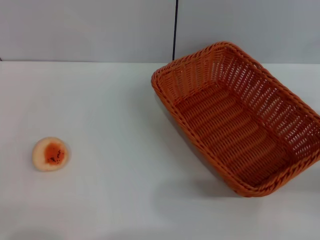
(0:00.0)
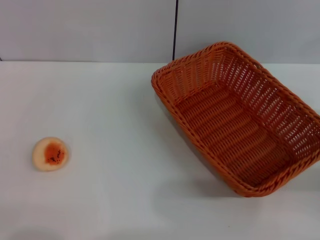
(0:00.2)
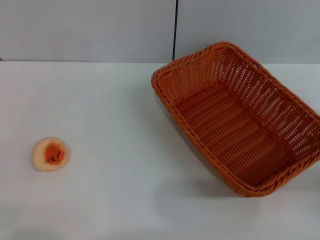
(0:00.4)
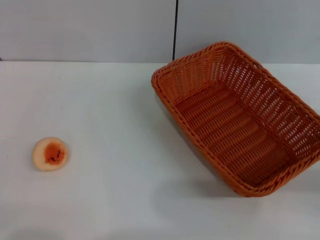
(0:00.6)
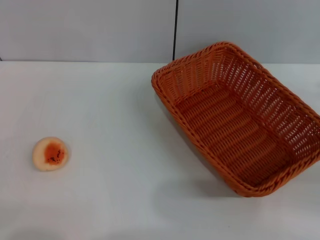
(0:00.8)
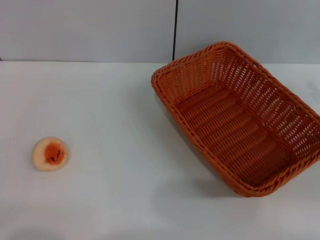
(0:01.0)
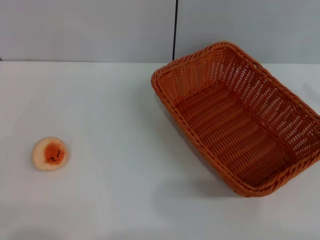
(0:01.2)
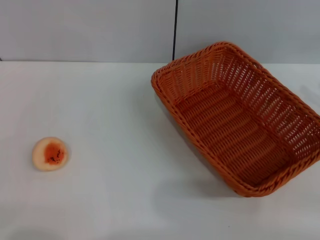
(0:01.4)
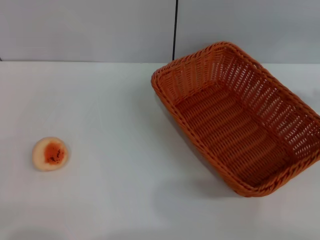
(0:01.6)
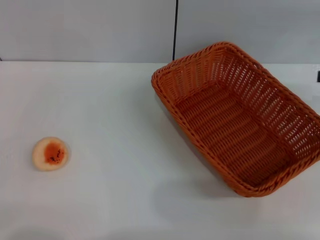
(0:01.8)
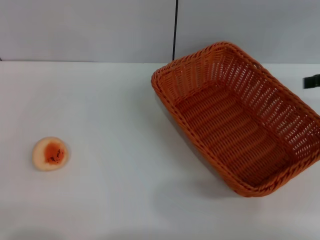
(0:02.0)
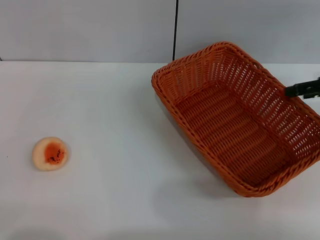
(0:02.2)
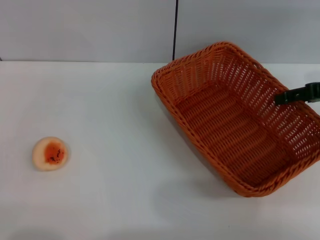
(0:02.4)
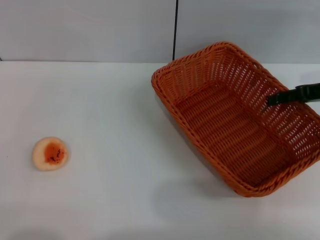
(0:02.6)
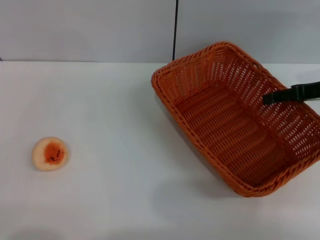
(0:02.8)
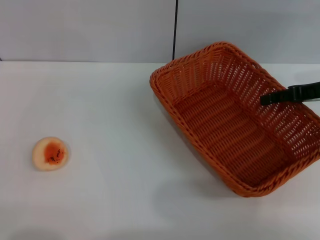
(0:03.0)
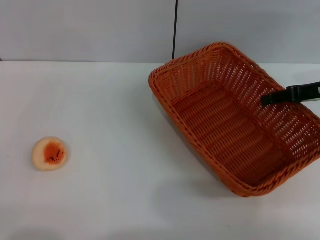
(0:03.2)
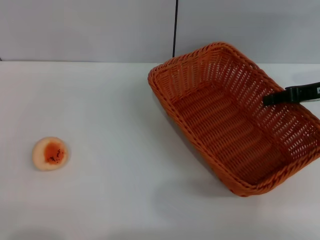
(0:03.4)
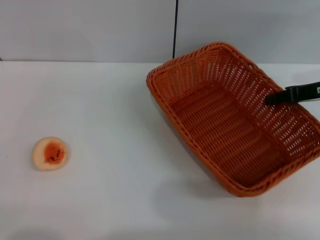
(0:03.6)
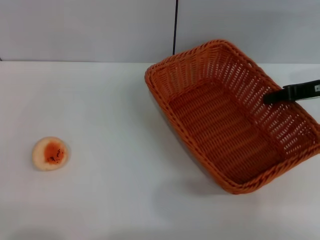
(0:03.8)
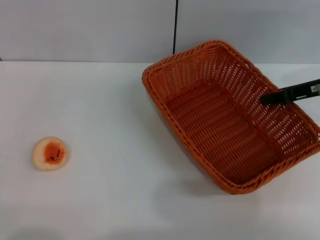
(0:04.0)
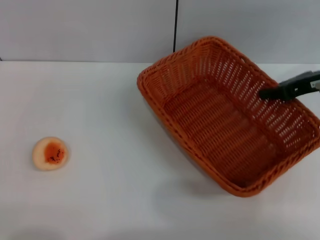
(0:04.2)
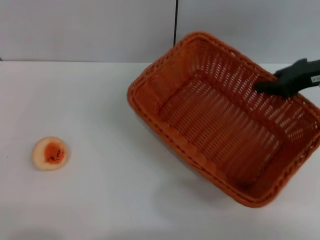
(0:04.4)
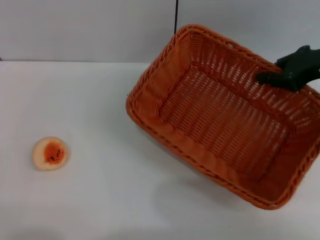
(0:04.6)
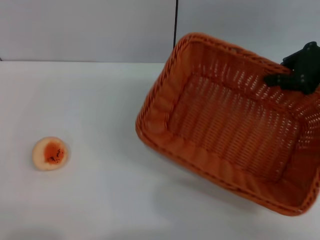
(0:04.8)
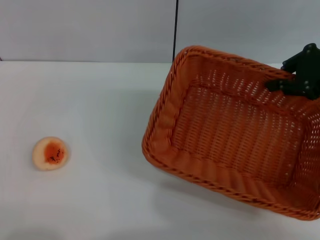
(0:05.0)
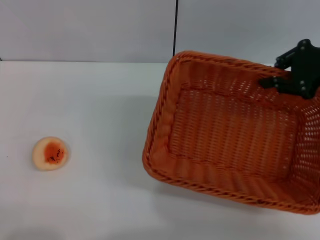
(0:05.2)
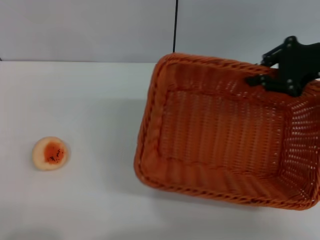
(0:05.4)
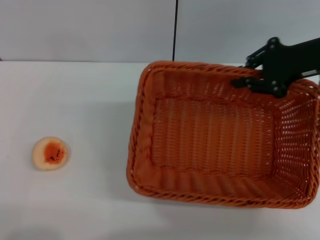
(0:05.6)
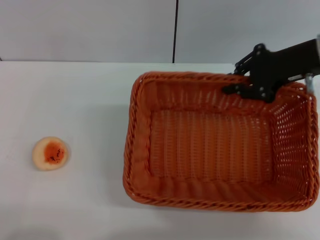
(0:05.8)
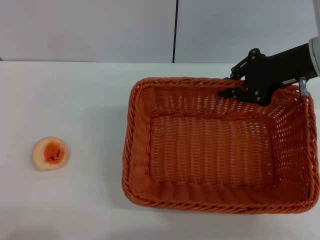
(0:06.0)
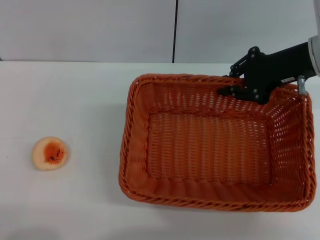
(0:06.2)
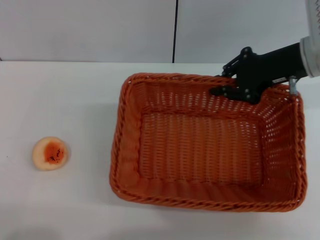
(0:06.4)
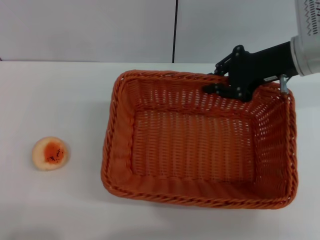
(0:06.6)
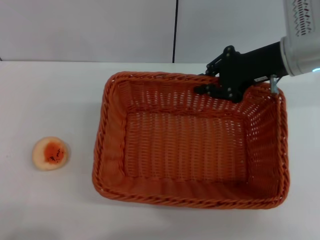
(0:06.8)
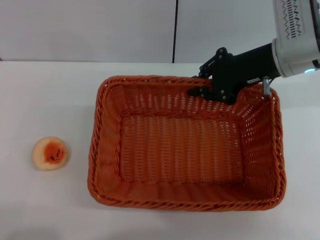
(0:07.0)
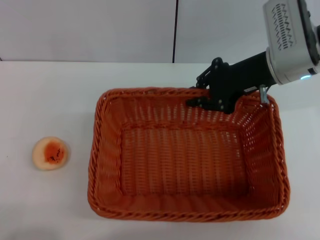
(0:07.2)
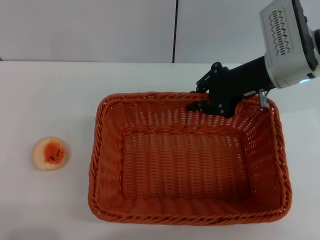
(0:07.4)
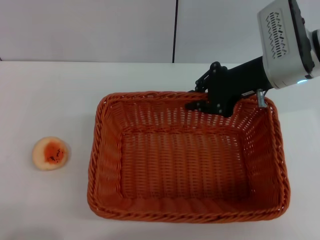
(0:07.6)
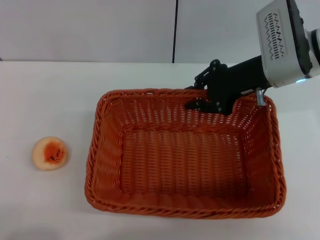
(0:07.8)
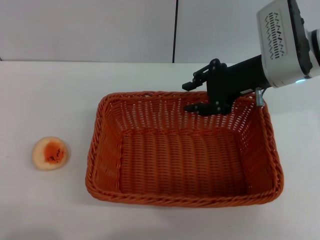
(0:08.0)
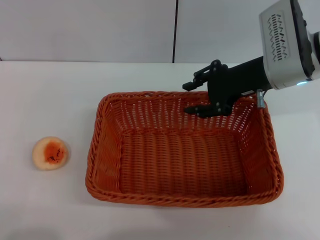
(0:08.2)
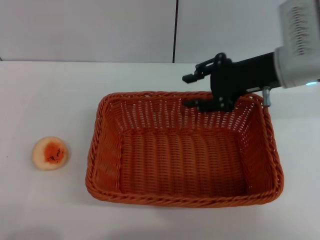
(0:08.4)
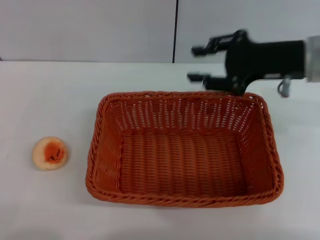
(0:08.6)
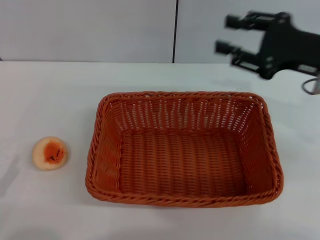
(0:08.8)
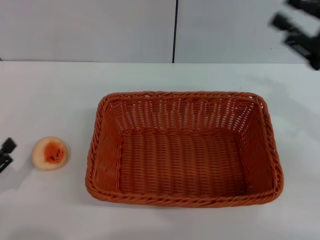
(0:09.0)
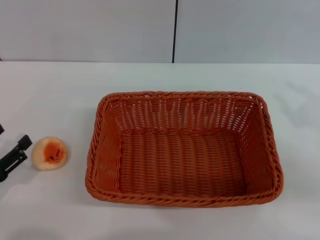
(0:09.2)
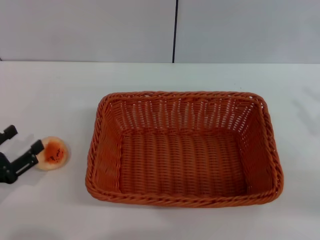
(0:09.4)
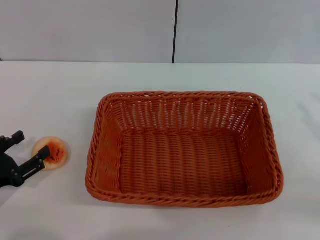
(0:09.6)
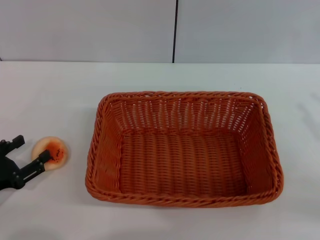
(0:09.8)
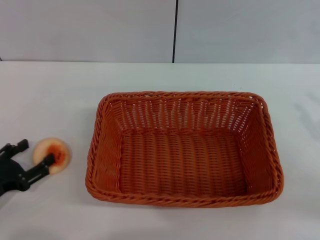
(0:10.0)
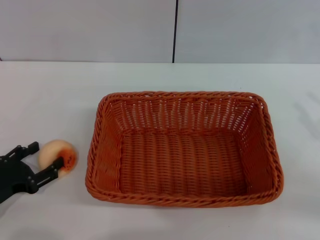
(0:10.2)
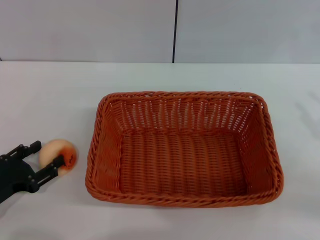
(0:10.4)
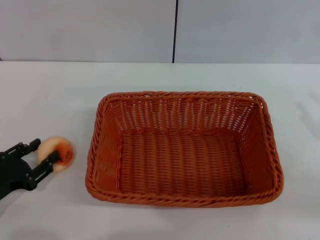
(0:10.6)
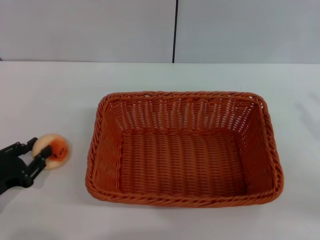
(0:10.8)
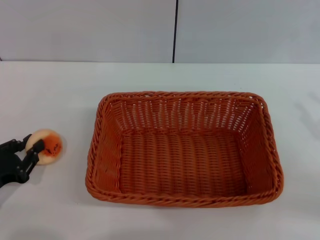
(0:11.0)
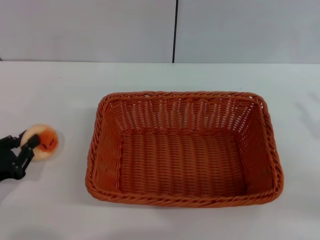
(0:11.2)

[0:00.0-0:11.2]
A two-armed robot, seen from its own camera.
Step, 0:00.0 to 0:08.4: Move the basket to the center of view with the right gripper.
0:01.6 to 0:03.2: The right gripper moves to the left and forward, about 10 cm.
0:03.2 to 0:04.8: The right gripper shifts roughly 5 cm upward, and closes.
0:04.8 to 0:06.4: The left gripper ends up some 5 cm from where it was; the right gripper heads to the left, covering about 5 cm.
0:08.0 to 0:09.6: The left gripper is displaced forward by some 10 cm, while the right gripper travels to the right and backward by roughly 25 cm.
0:09.6 to 0:11.2: The left gripper closes up.

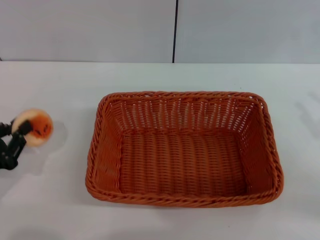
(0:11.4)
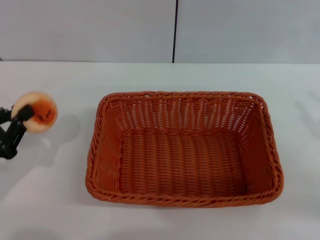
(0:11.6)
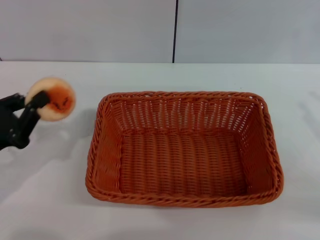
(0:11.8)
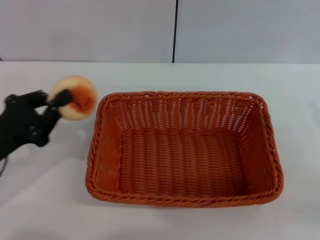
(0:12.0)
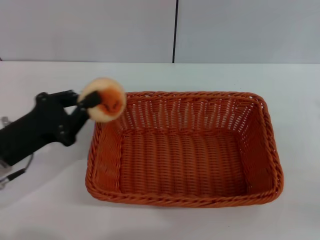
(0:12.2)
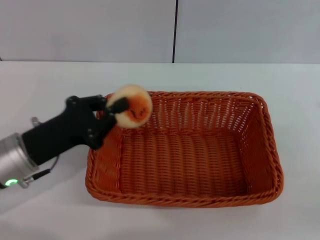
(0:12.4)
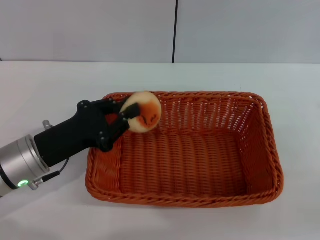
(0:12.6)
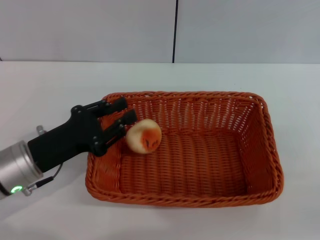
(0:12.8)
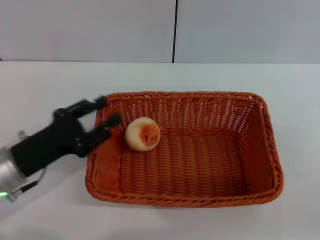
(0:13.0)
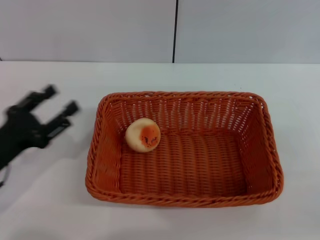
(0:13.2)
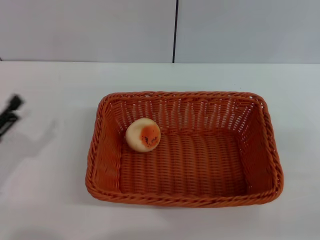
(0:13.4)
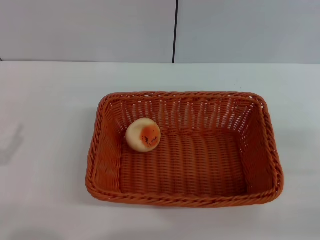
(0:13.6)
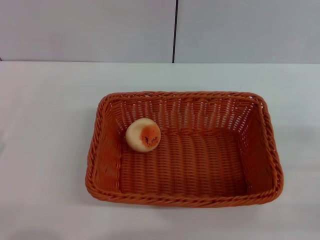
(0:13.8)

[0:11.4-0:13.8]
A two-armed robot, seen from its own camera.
Step, 0:12.0 to 0:13.0: Place the egg yolk pastry into the basket with the left gripper.
0:11.4 to 0:12.6: The left gripper moves to the right and forward, approximately 15 cm.
0:12.6 to 0:13.8: The left gripper heads to the left and backward, covering roughly 15 cm, and opens.
